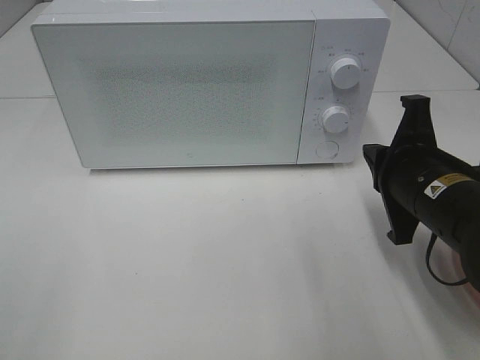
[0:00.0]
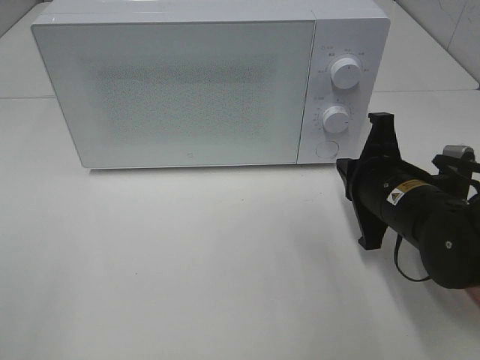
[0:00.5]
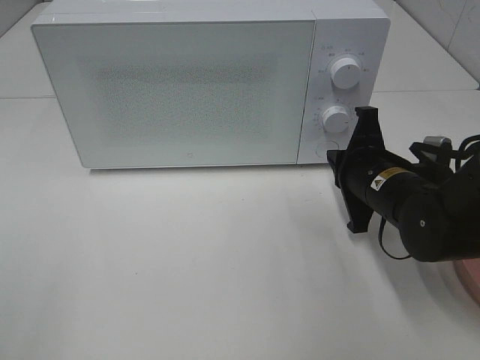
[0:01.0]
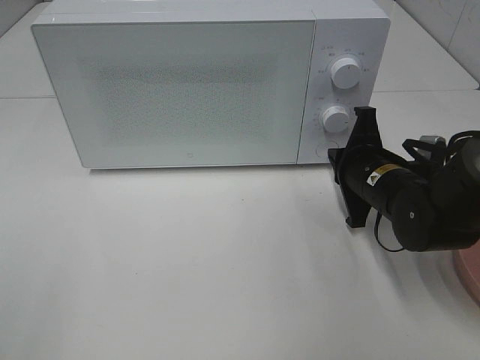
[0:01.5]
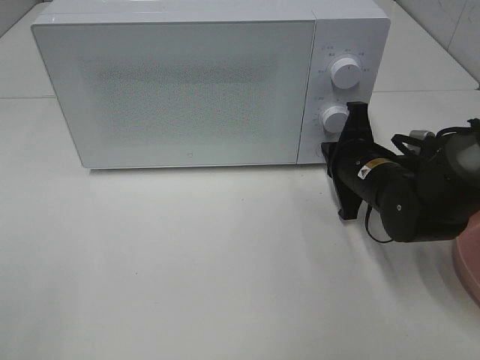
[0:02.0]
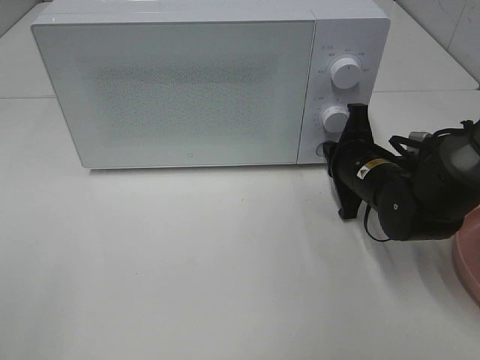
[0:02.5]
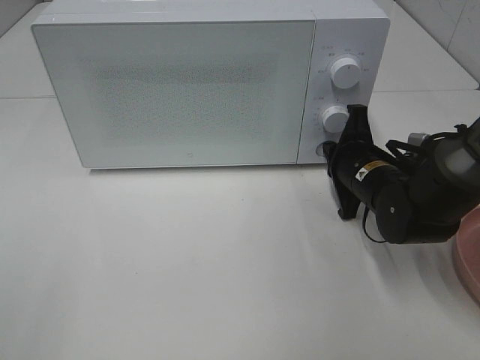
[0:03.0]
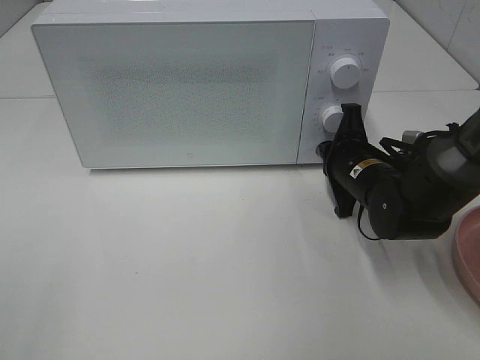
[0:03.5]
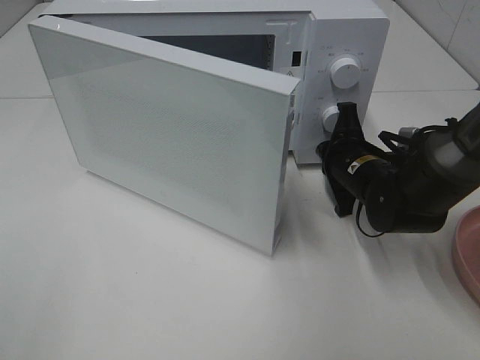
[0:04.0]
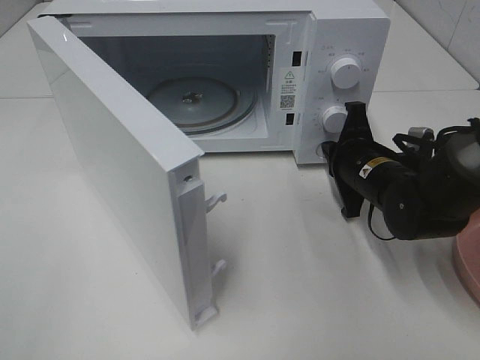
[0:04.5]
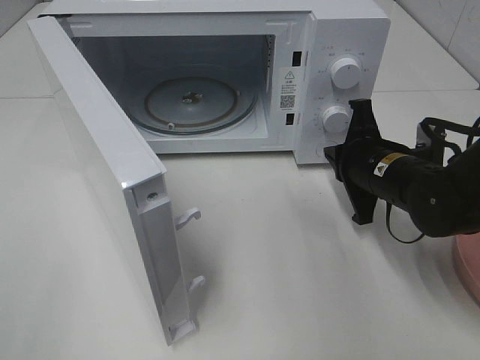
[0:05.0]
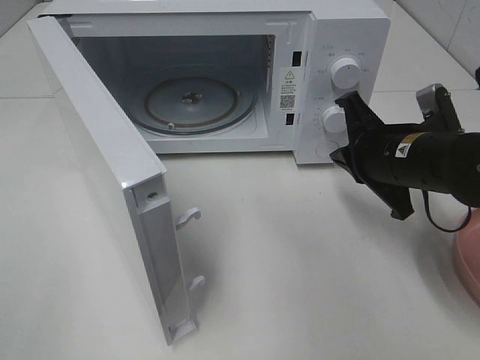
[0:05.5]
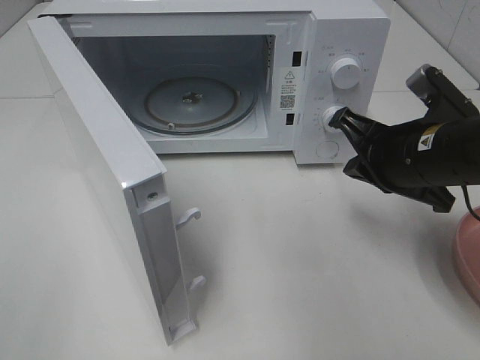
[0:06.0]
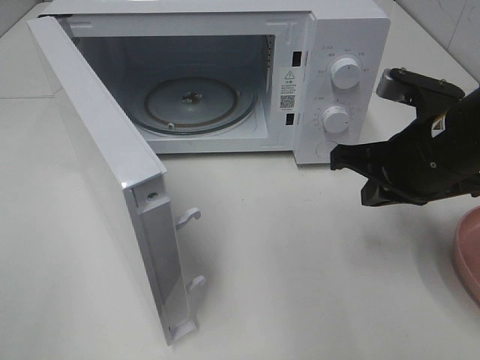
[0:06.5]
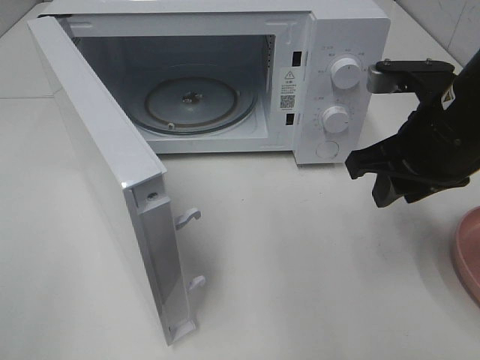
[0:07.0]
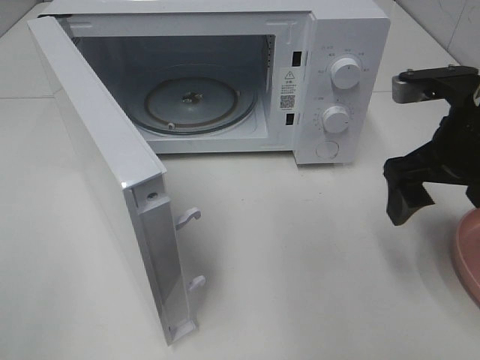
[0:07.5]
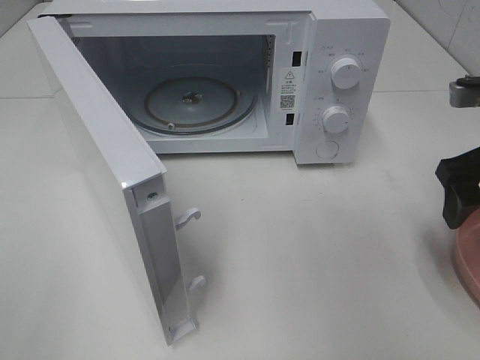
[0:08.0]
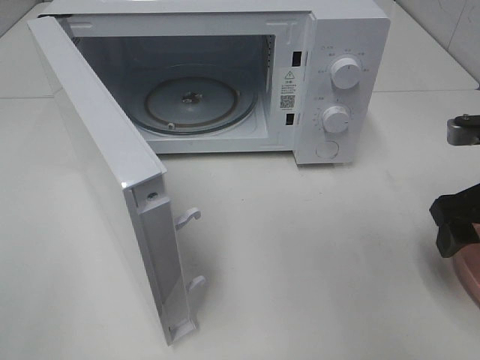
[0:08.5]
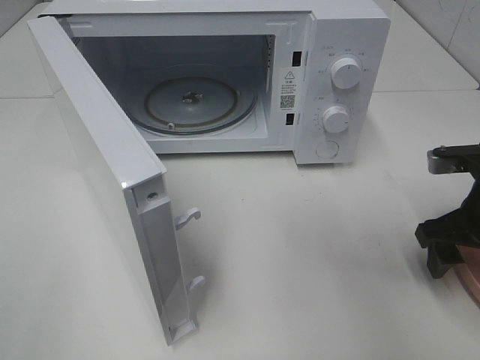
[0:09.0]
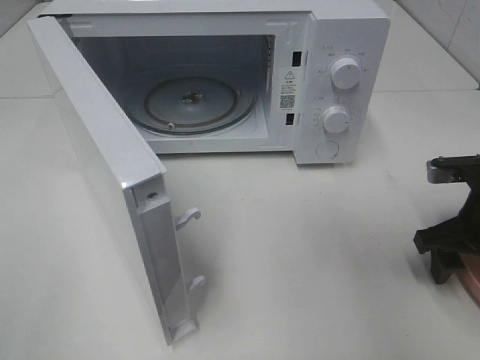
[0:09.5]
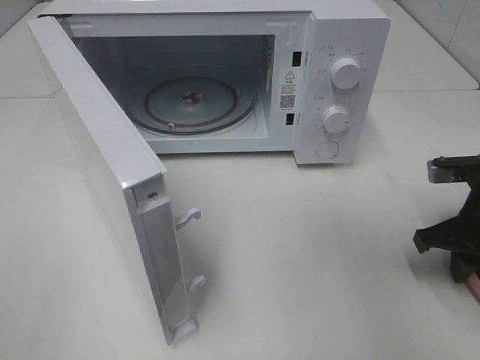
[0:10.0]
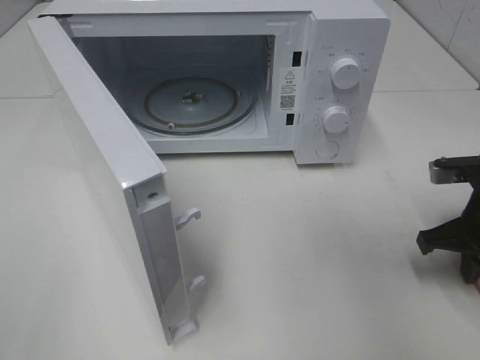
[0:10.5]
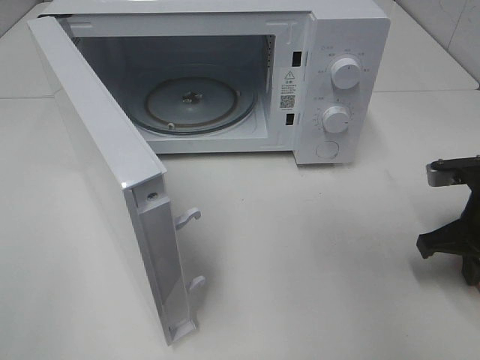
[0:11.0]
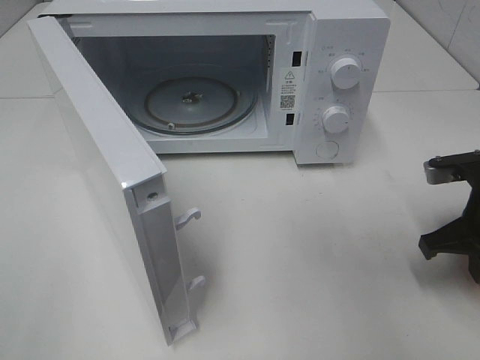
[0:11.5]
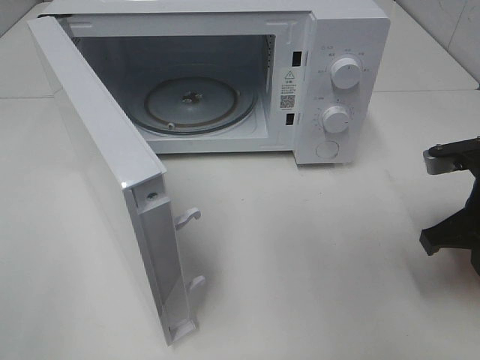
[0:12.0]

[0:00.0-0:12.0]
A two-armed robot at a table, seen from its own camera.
Task of the whole recording: Heat the burger.
Step, 0.0 to 4.5 s: Right hand: press the switch.
Step, 5.0 to 10.0 s: Right hand: grab the plate with the hamburger.
0.0 to 2.0 s: The right gripper is displaced forward and downward by roughly 10 cm.
2.0 to 4.0 s: There are only small adjustments of the grippers.
4.0 to 6.0 s: The right gripper heads upward and backward, covering roughly 15 cm.
6.0 to 8.0 s: The right gripper goes approximately 10 cm to the right, and opens its fingers.
8.0 to 10.0 s: The right gripper travels downward by about 10 cm, and closes its fingers.
10.0 to 12.0 s: The right gripper shifts by some 5 cm.

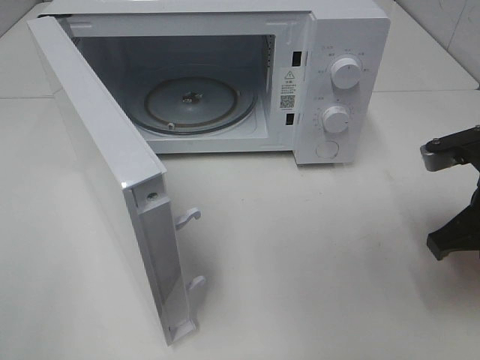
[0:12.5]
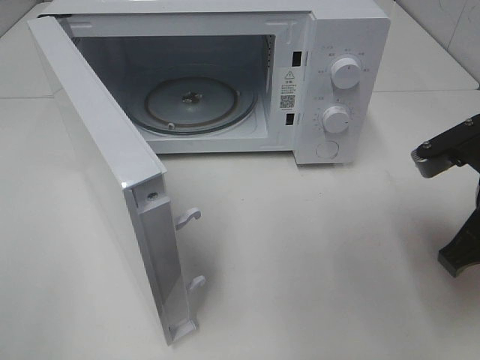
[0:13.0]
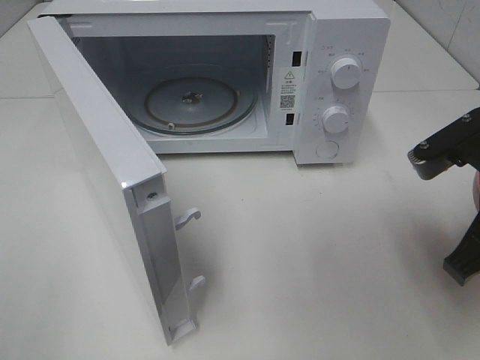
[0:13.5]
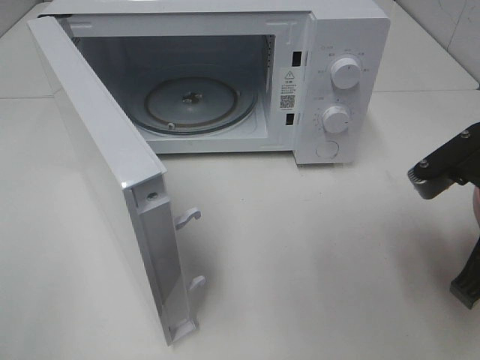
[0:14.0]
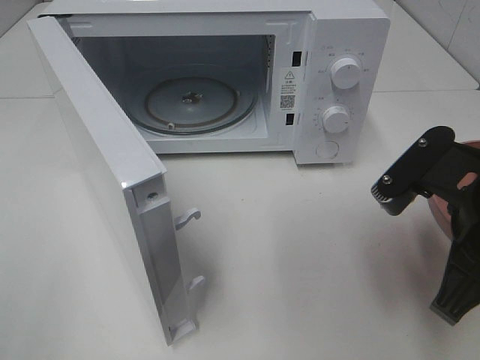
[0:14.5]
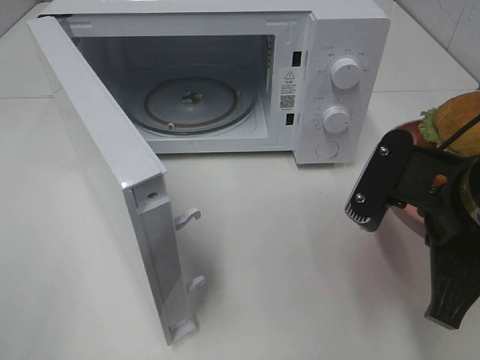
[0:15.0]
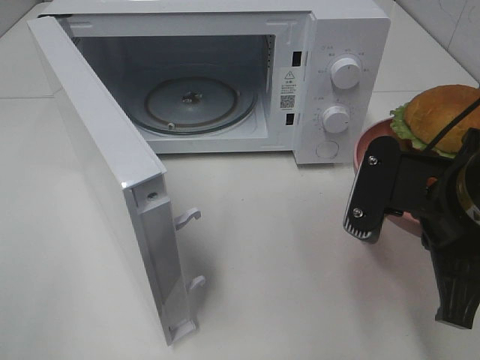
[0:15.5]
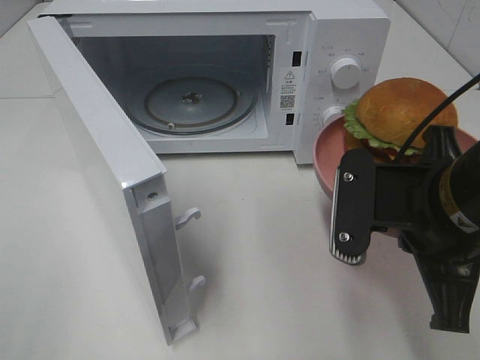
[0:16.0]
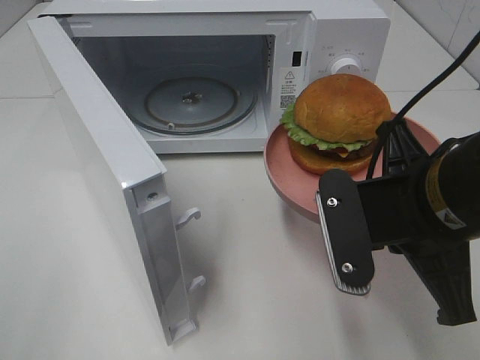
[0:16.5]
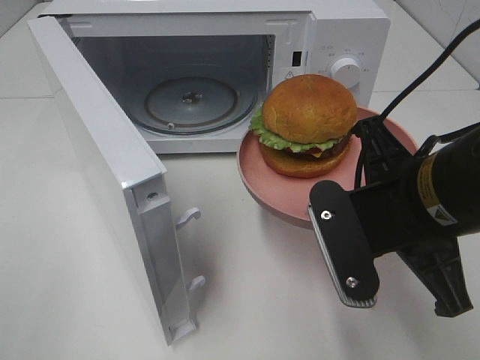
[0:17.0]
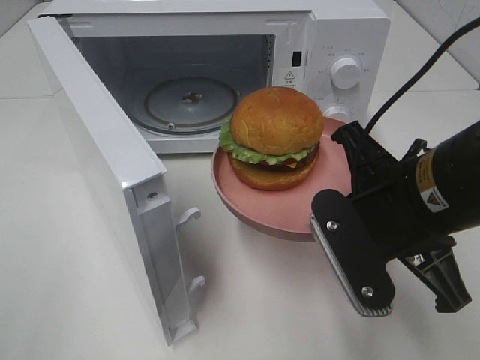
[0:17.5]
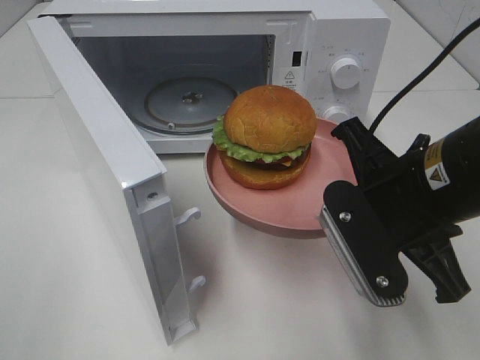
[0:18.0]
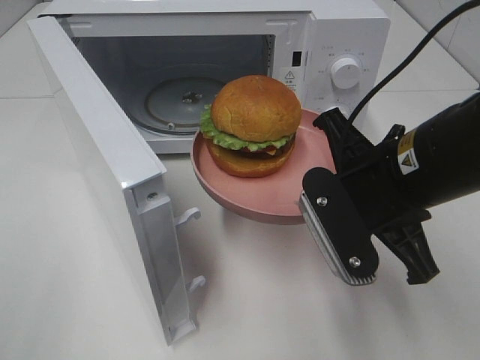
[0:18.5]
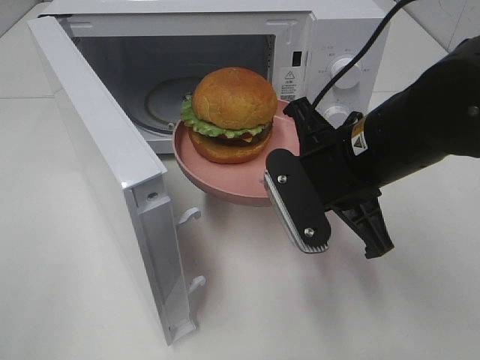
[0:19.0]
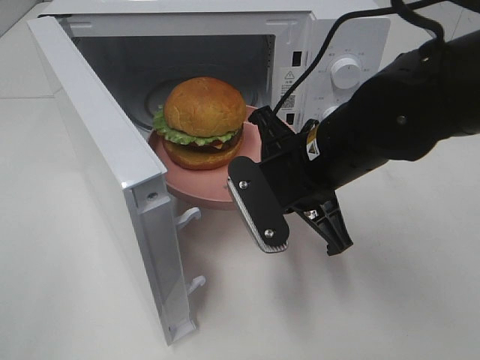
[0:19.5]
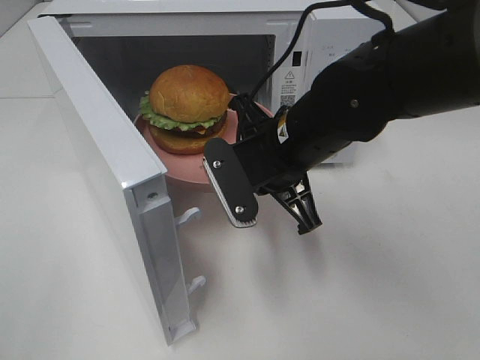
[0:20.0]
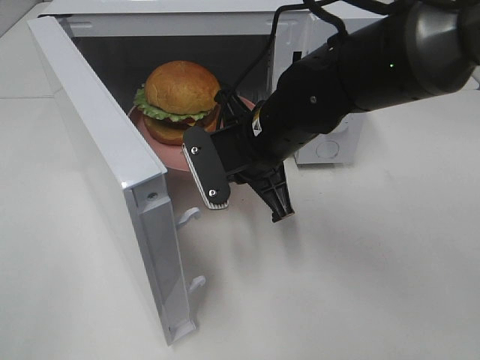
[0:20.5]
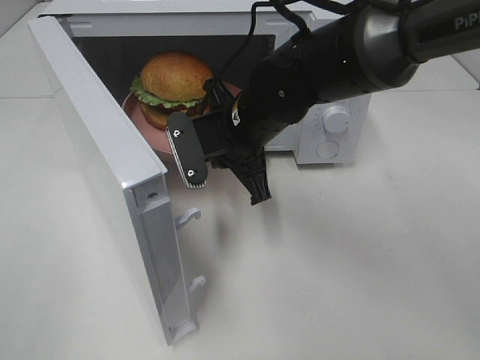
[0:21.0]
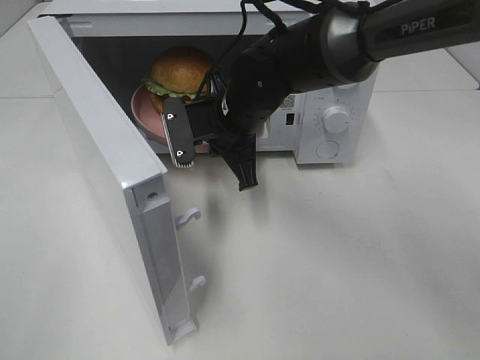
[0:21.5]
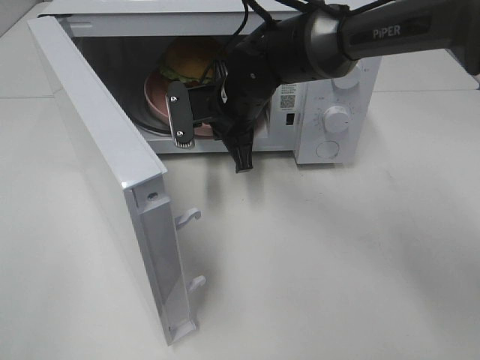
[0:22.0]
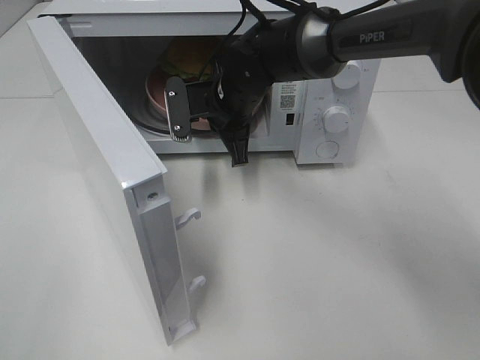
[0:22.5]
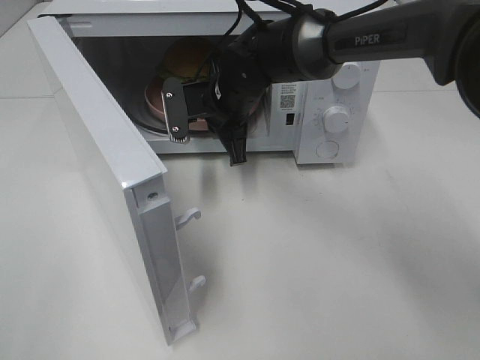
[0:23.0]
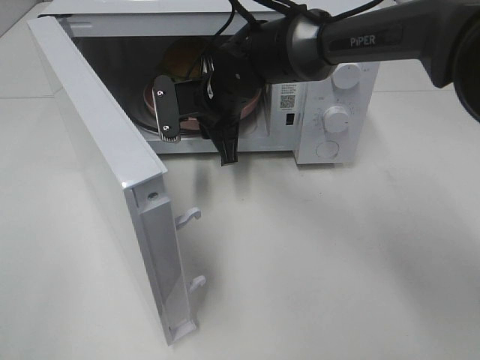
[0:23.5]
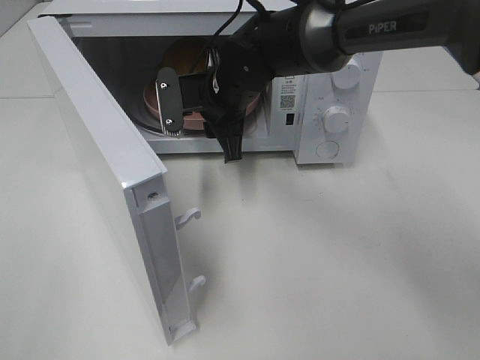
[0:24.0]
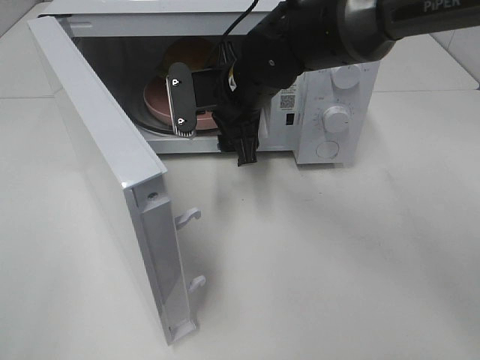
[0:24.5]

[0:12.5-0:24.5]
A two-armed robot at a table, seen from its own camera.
Task of the whole recording: Heat the burger.
Step, 12.5 to 23.0 s: Right hand: place the plate in the microwave.
12.5 to 14.5 s: The right gripper goes roughly 10 cm to the left and backward.
18.5 to 20.5 s: The right gripper heads to the left and forward, covering about 15 cm.
20.5 to 22.5 s: The right gripper heads forward, covering roughly 10 cm.
22.5 to 24.5 s: The right gripper changes place by approximately 5 cm, and opens its fingers.

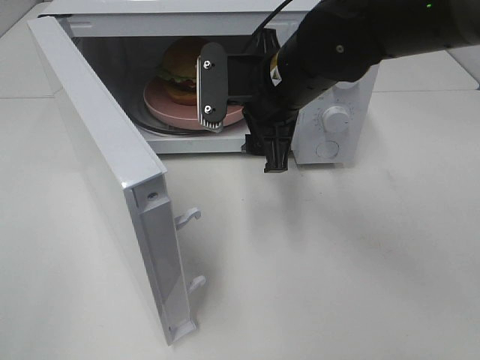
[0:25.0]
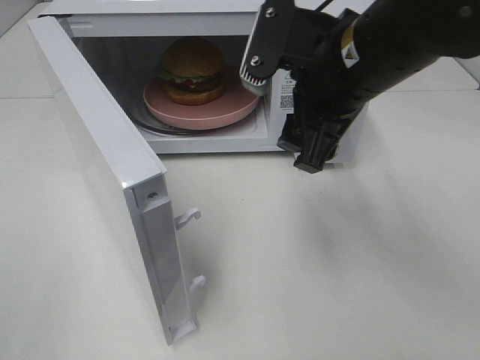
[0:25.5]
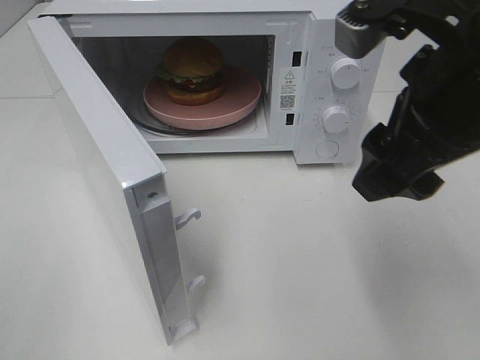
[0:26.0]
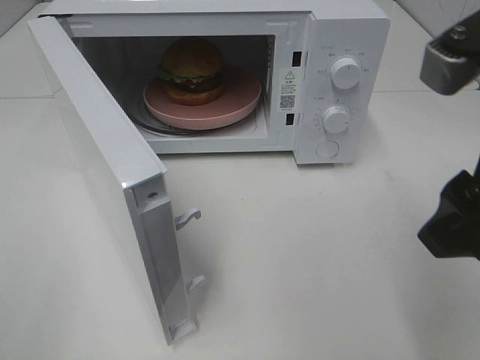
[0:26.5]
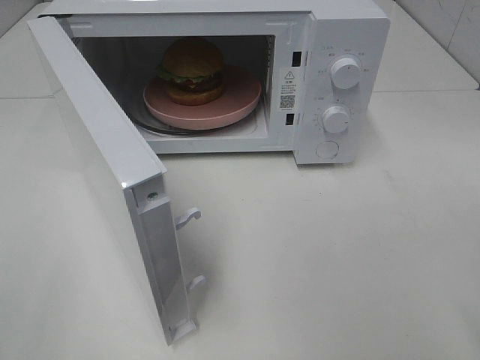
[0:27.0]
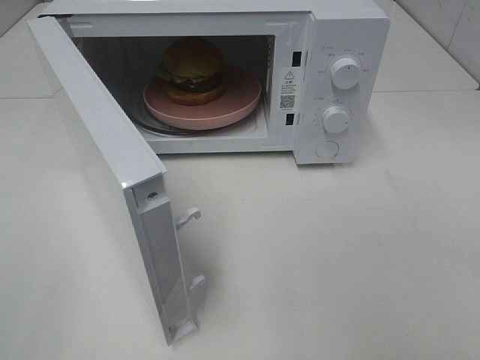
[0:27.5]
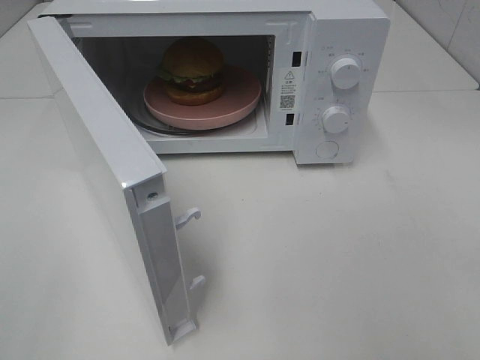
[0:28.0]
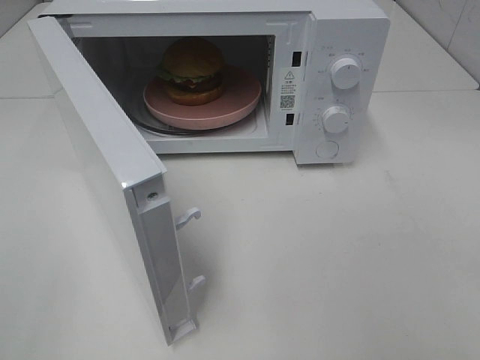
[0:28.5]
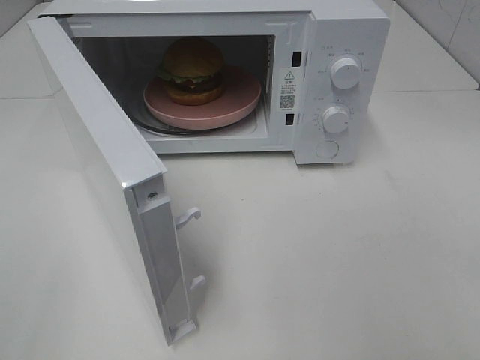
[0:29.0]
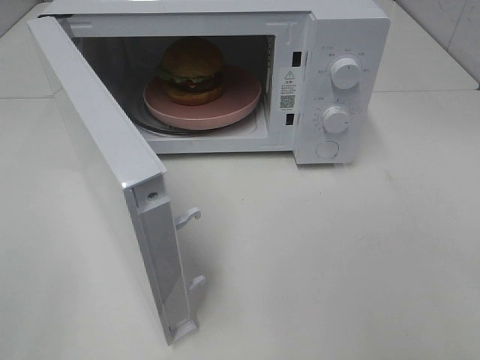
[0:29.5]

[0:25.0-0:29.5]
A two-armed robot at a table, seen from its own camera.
Task of the whole recording: Heat the burger.
25.0 to 27.0 s: The right gripper travels backward and to the right by some 30 cm.
